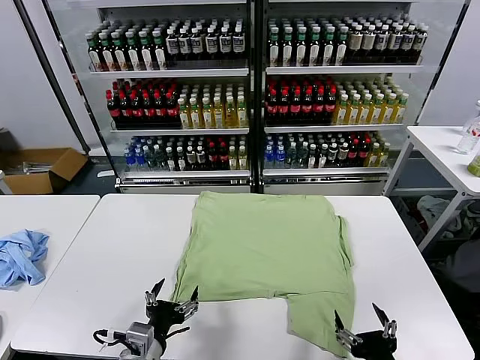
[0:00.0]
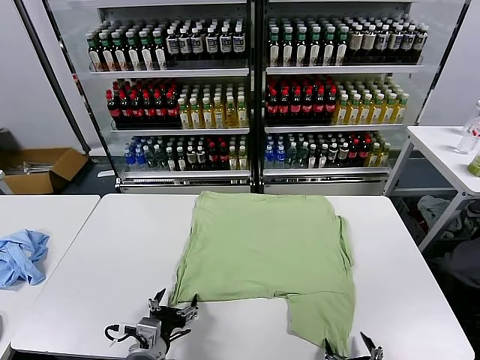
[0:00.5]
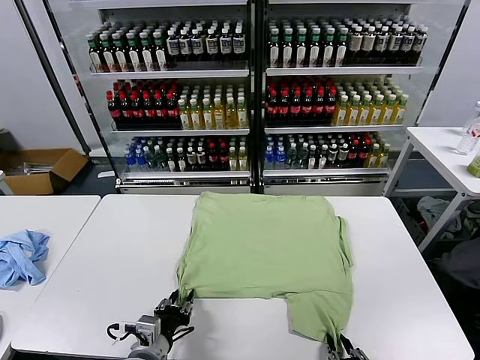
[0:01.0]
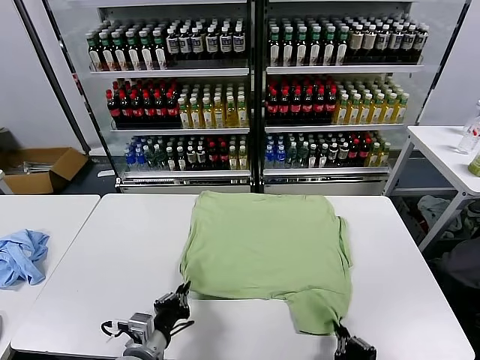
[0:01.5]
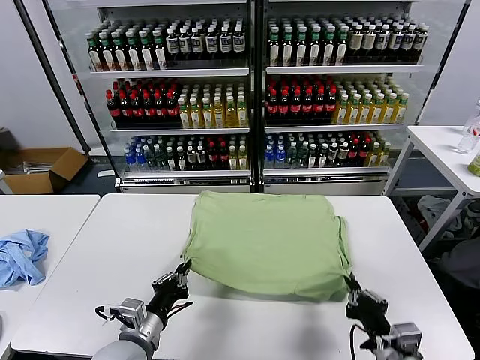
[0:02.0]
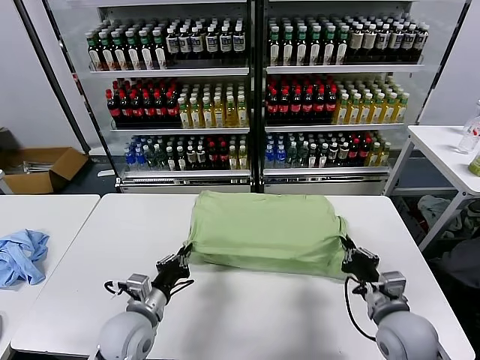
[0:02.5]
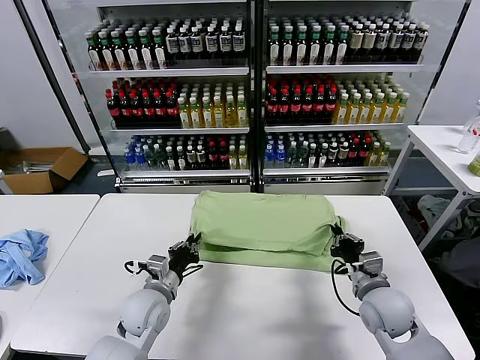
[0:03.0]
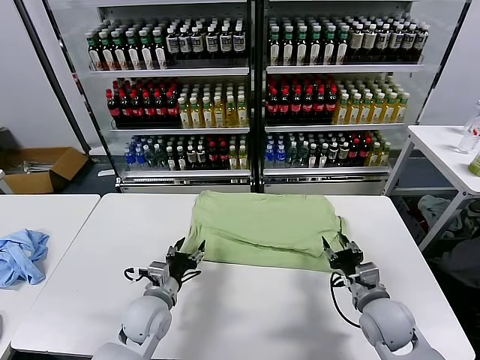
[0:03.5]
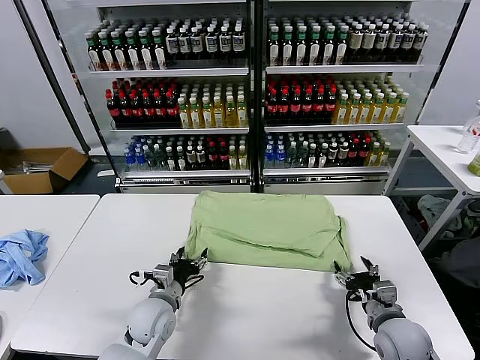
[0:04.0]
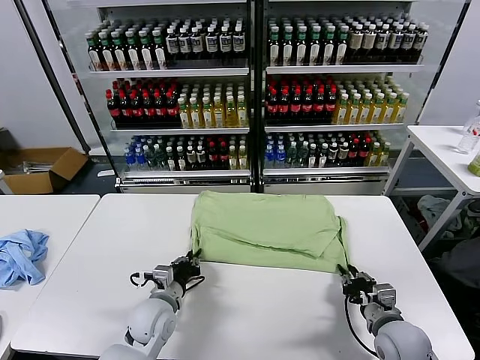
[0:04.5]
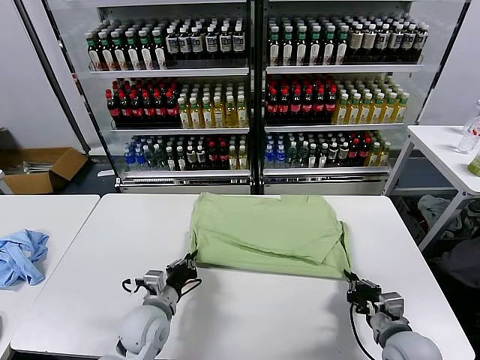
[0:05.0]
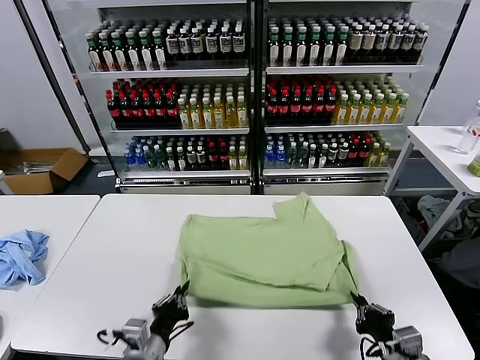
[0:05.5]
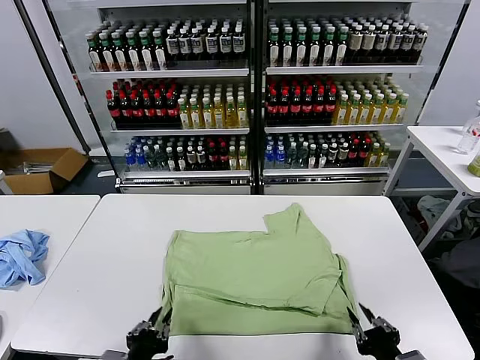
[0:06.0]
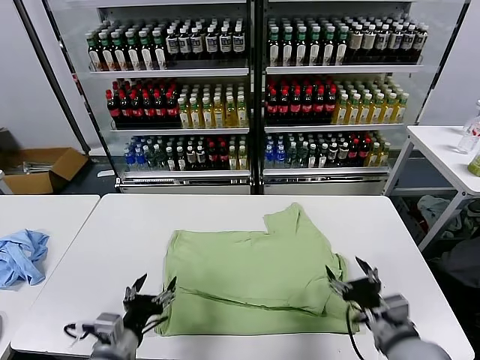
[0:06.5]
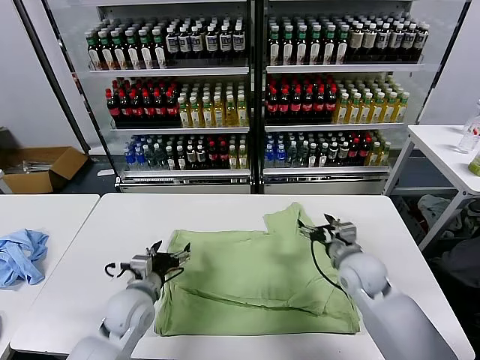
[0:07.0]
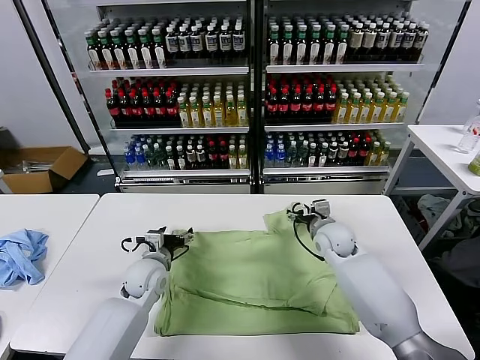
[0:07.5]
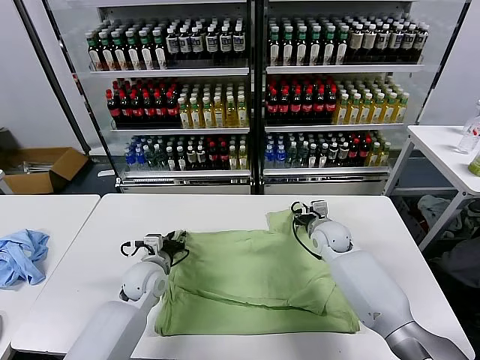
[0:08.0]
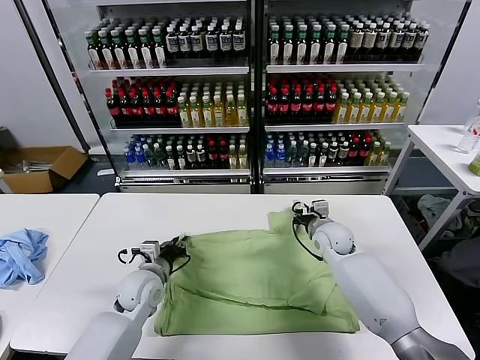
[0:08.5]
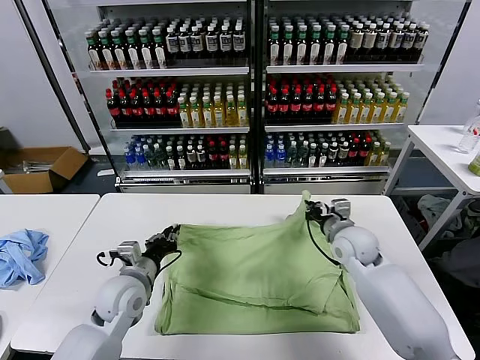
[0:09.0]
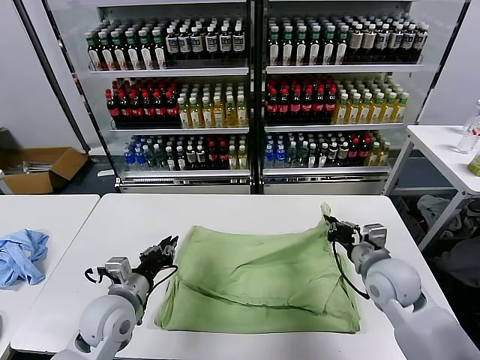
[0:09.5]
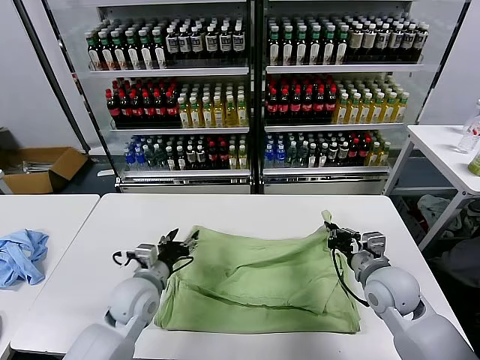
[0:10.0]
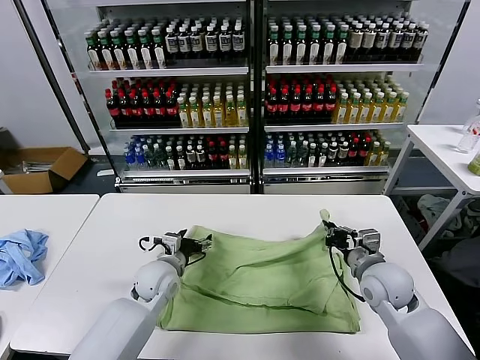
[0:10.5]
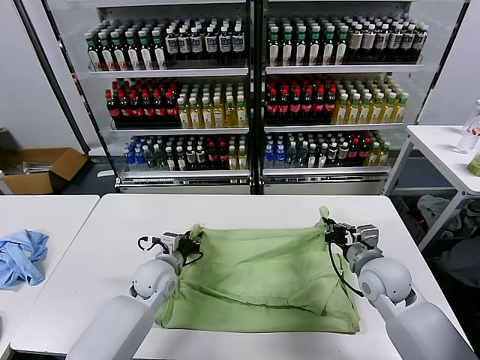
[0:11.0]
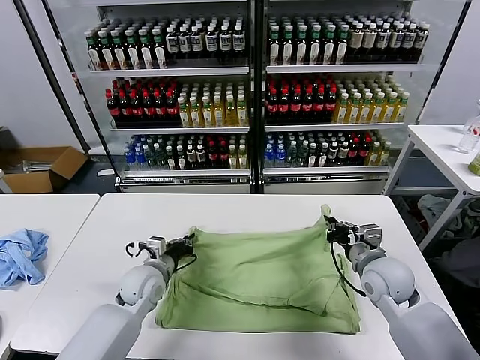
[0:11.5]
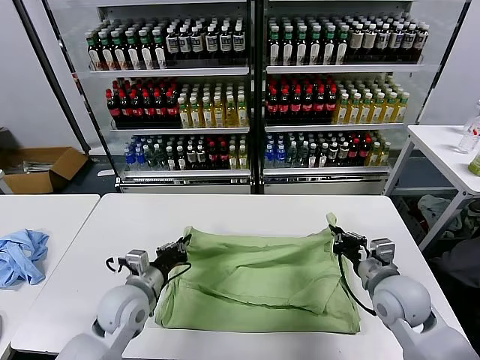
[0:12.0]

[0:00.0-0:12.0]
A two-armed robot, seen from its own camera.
Task of the whole recording: fold and organize the clothes.
Step, 0:00.0 to 0:01.0: use both grippers simultaneously to clamp the lower edge of the clothing fabric.
Step, 0:01.5 to 0:03.0: use both grippers to drag the lower edge of the fabric forward and fold it over the upper edge.
Step, 0:03.5 to 0:05.5: Drag the clothes downward with both gripper.
Step, 0:06.0 to 0:08.0: use both grippers simultaneously to clamp the upper edge of the clothing fabric.
0:02.0 to 0:04.0: Both grippers move forward and downward, roughly 10 cm. The right gripper opens, while the left gripper opens up.
0:04.0 to 0:06.0: The left gripper shifts approximately 20 cm backward, and closes. Meanwhile the right gripper travels backward and upward by approximately 15 cm, and closes, then reopens.
0:06.0 to 0:08.0: The two grippers go approximately 35 cm forward. The right gripper opens, then closes once more. Meanwhile the left gripper opens, then closes again.
0:08.0 to 0:10.0: The right gripper travels backward by about 15 cm, and closes; the left gripper travels backward by about 5 cm.
0:10.0 to 0:12.0: The left gripper goes forward and returns, approximately 5 cm each way, and closes its fingers.

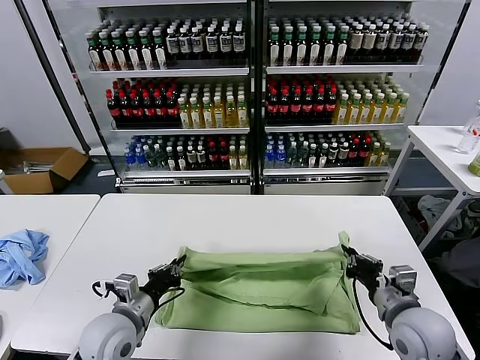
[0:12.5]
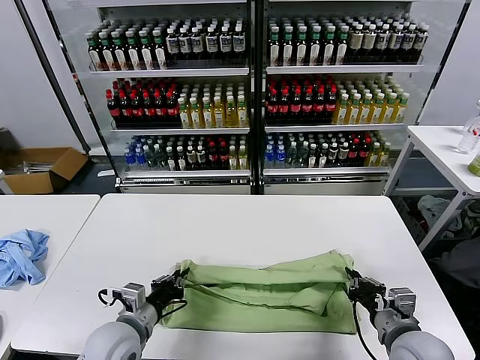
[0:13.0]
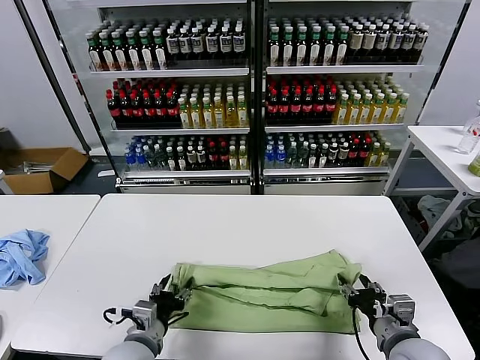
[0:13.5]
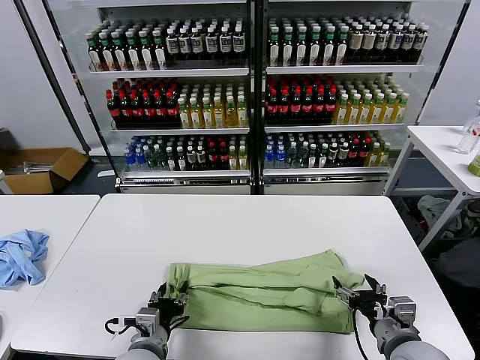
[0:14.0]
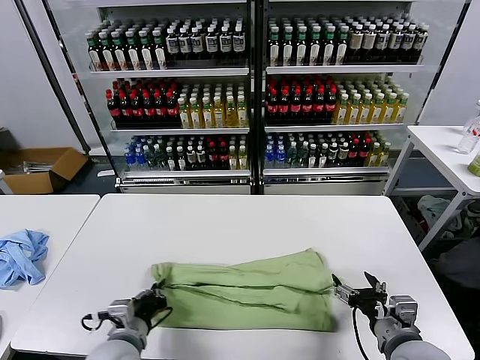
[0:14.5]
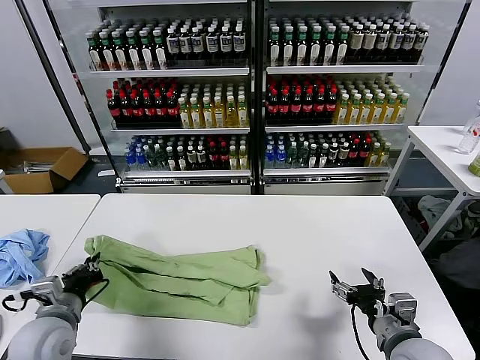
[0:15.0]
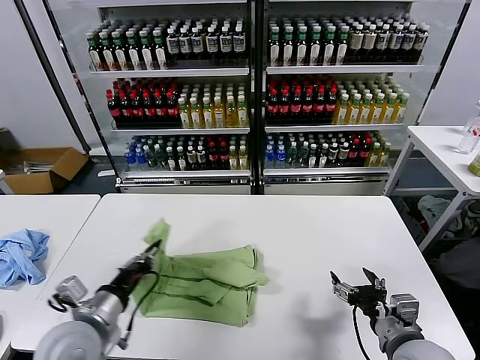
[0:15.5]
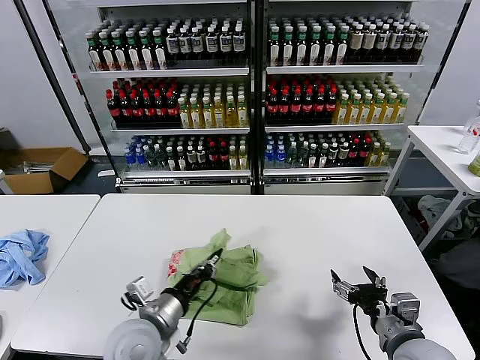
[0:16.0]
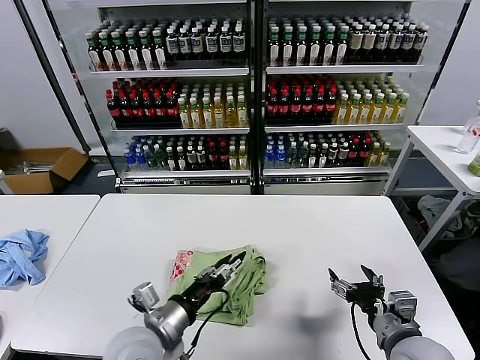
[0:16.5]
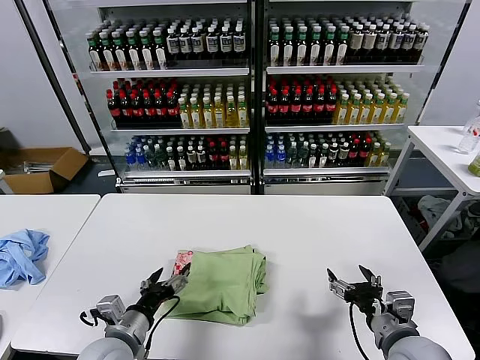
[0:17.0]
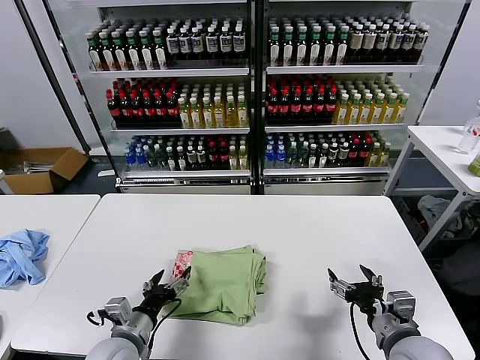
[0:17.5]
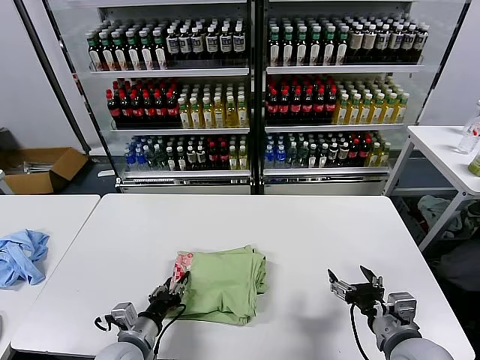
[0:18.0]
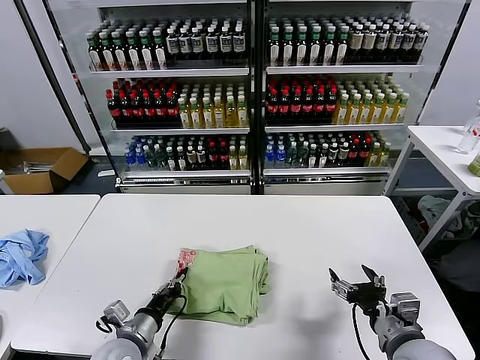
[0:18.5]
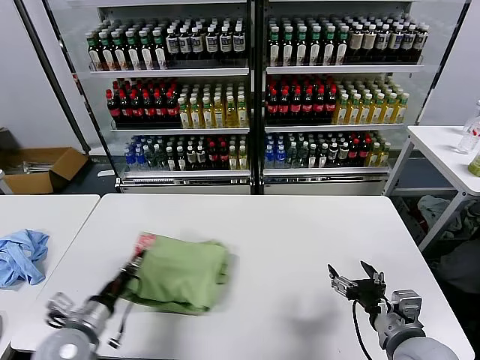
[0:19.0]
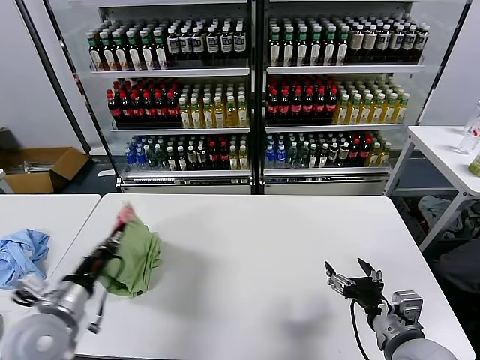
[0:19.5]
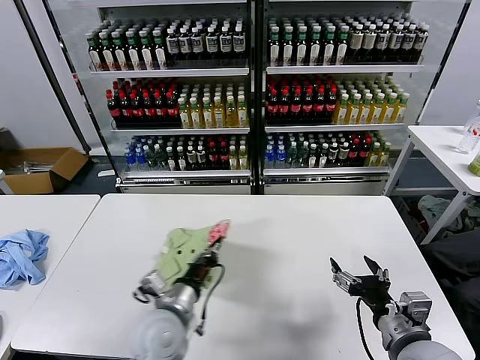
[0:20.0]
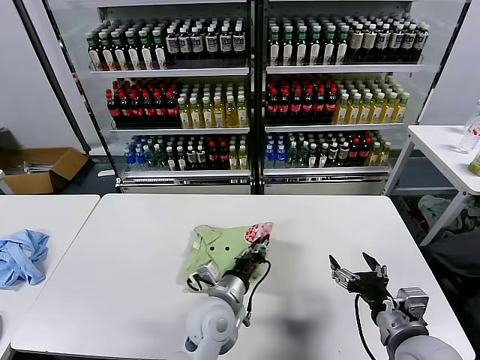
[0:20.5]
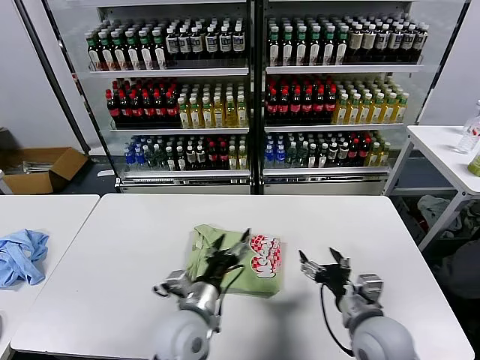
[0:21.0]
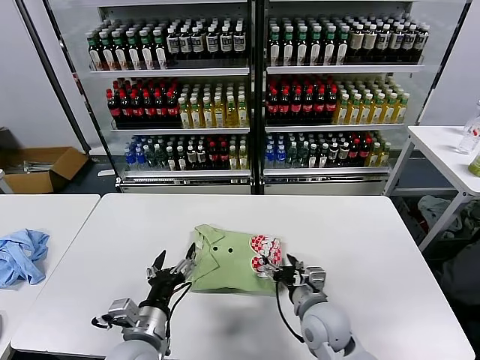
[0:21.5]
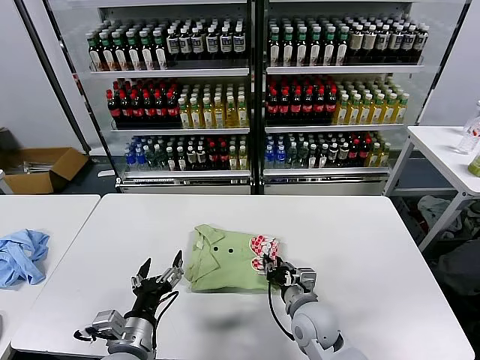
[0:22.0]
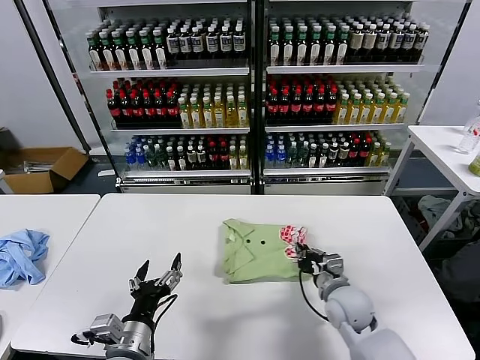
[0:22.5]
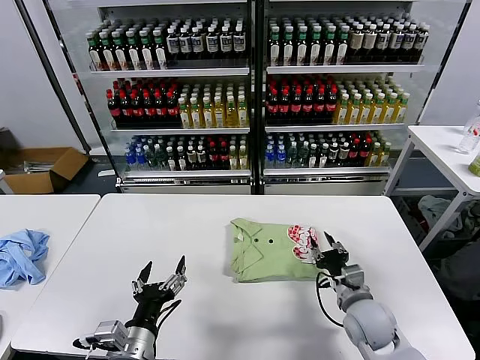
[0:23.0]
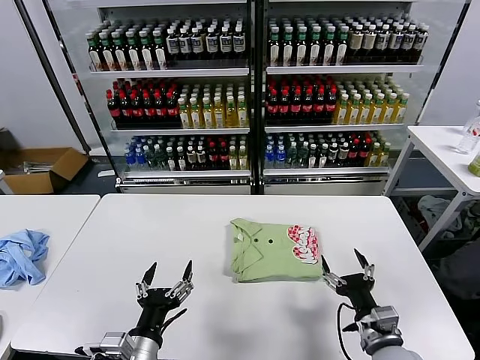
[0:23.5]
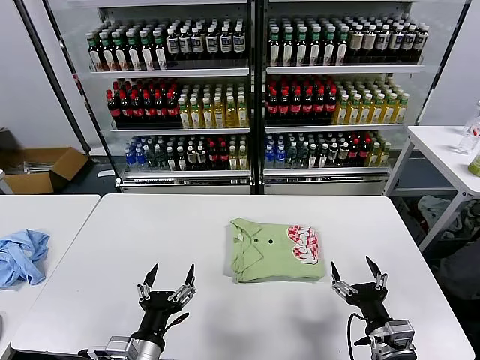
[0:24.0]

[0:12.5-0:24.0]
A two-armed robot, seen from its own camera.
Task of the whole recording: fold and organize the clothes.
Step, 0:14.5 to 0:16.0: use the left gripper to drag the left edge of the fabric to the left and folds it over the right edge.
Step, 0:17.0 to 0:20.5: Flip the folded clothes over with left gripper.
Step, 0:21.0 to 0:22.5: Drag the clothes to the center of the table.
0:12.5 to 0:14.5: The left gripper opens, then closes again. The right gripper opens up.
0:14.5 to 0:16.5: The left gripper heads upward, covering about 5 cm, reaches about 10 cm to the left, then returns, and opens up.
0:16.5 to 0:18.5: The left gripper travels downward and to the left by roughly 10 cm, and closes its fingers.
0:18.5 to 0:20.0: The left gripper moves upward and to the right, approximately 10 cm.
0:20.0 to 0:22.0: The right gripper travels to the left, downward and forward by some 20 cm, and closes up. Meanwhile the left gripper shifts some 5 cm backward, reaches approximately 10 cm to the right, then returns, and opens up.
0:22.0 to 0:24.0: The right gripper goes roughly 20 cm to the right and backward, and opens up.
